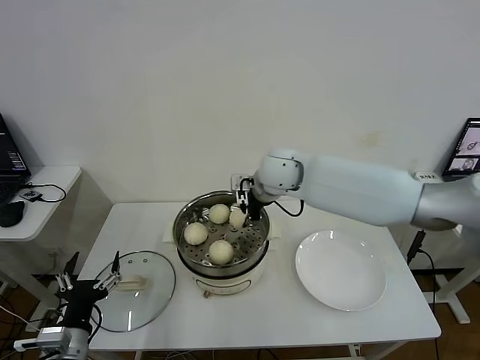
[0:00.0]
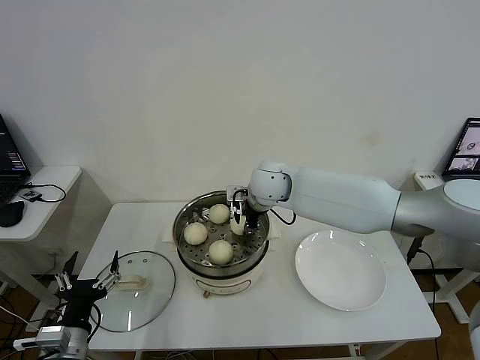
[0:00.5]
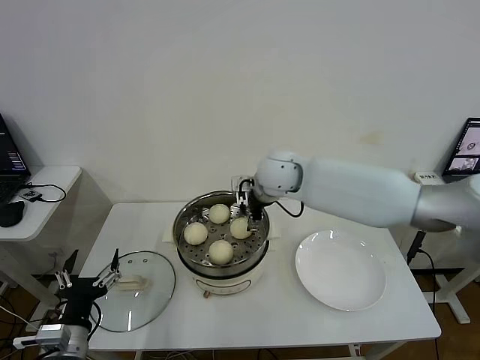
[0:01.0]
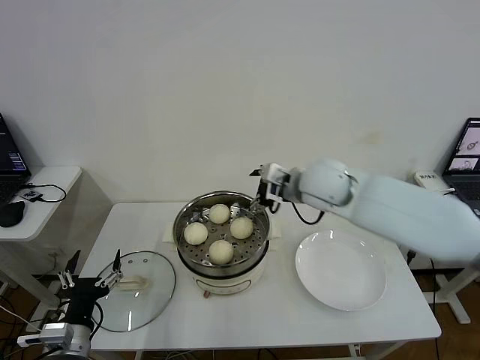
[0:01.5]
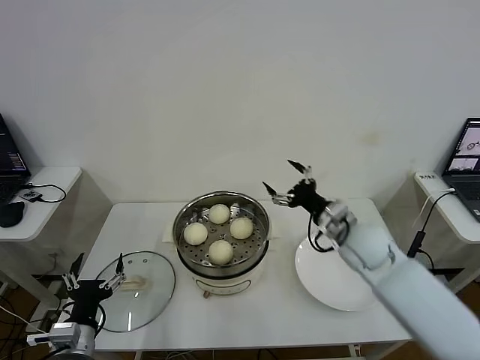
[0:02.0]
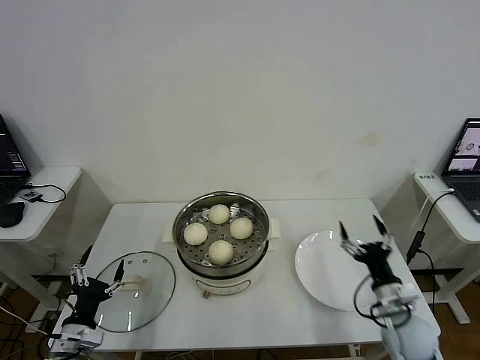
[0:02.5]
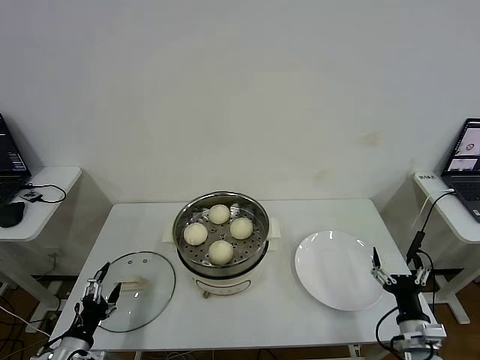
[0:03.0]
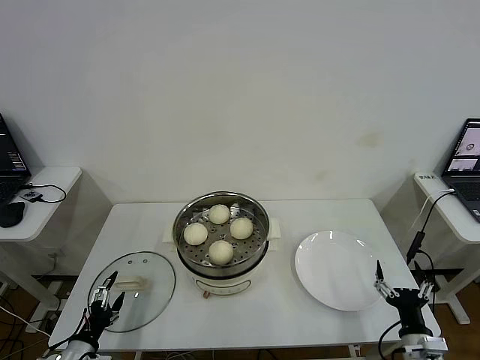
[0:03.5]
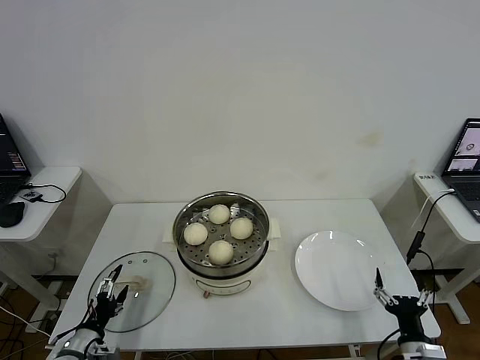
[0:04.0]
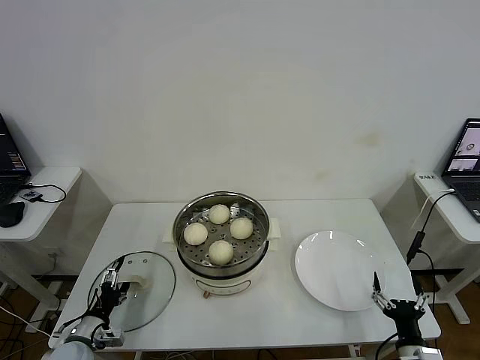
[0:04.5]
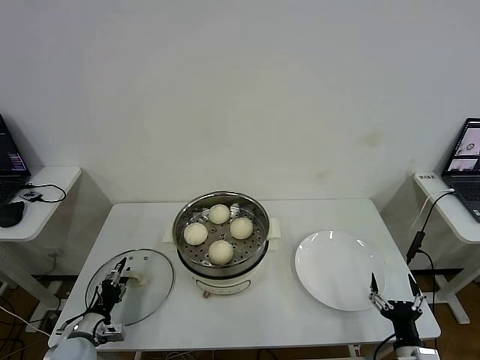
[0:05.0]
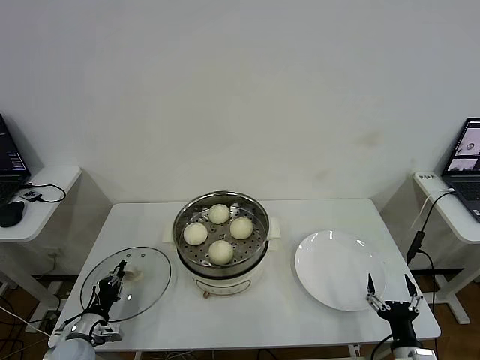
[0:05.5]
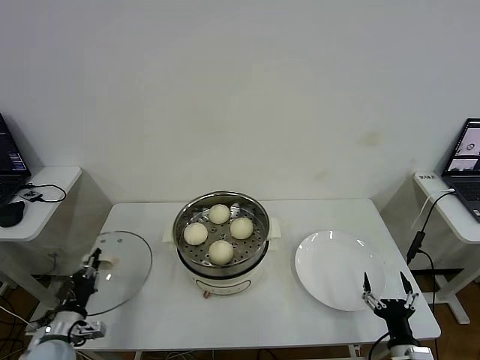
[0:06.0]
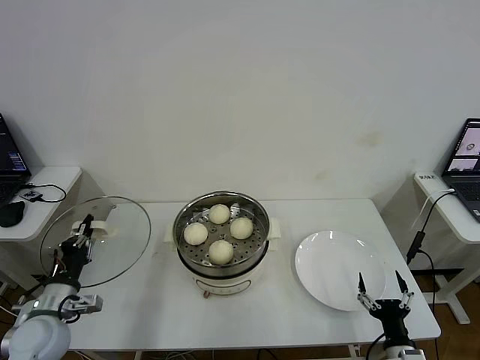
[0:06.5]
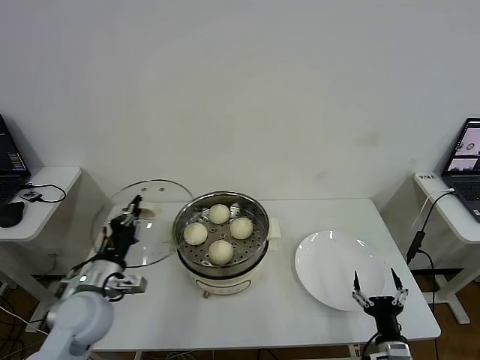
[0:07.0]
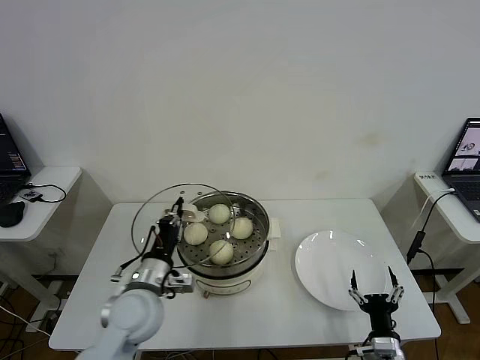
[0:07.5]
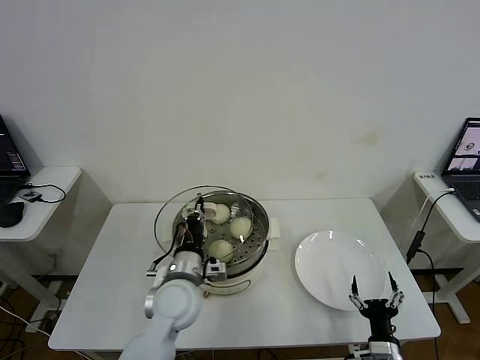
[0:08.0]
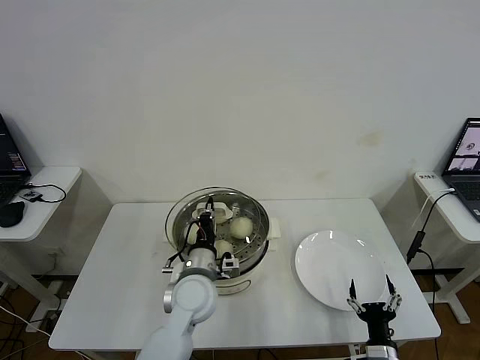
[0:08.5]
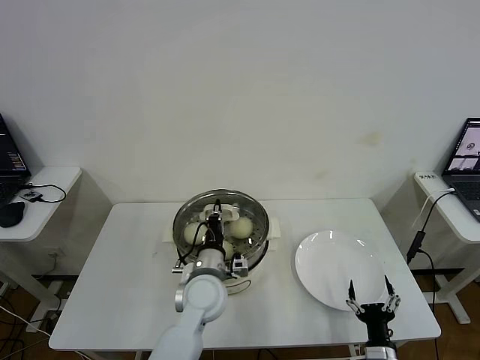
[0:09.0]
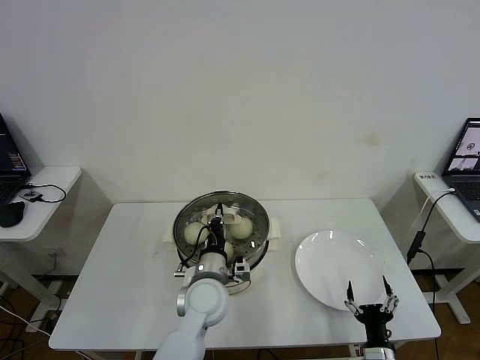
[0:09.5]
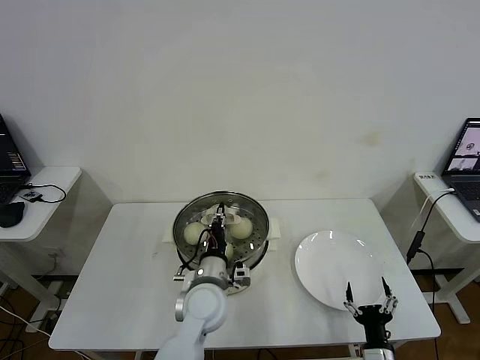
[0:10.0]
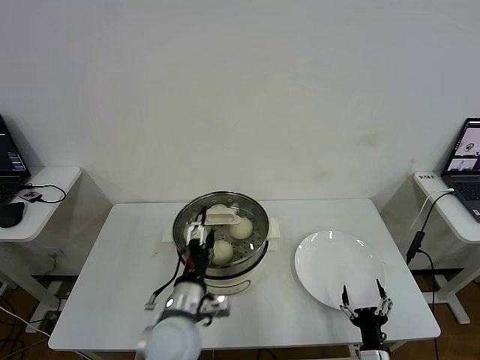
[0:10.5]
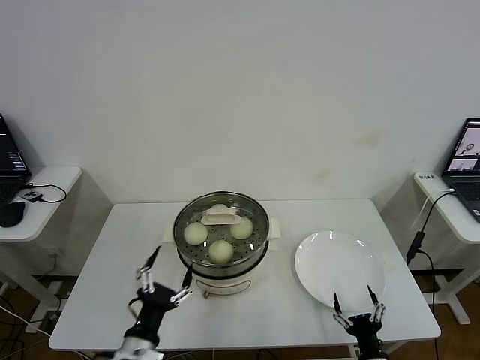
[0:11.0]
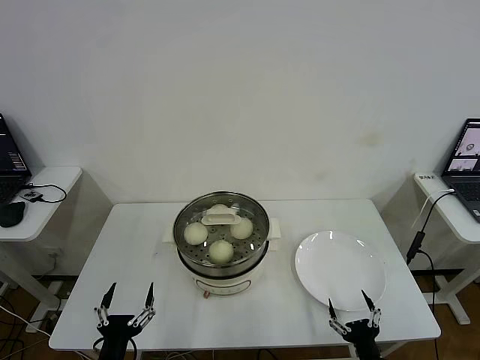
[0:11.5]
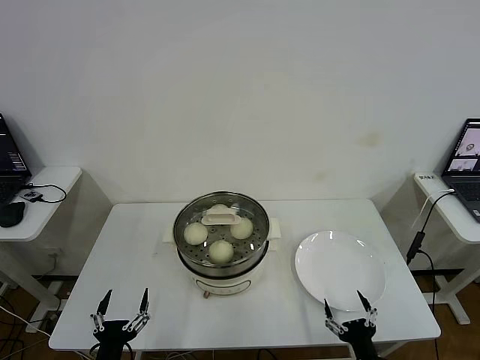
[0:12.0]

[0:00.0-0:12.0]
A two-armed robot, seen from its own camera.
Step, 0:01.0 to 0:05.5: Grasp the pot lid with left gripper.
Step, 0:06.0 to 0:10.0: Place the pot lid on the steamer with left gripper.
0:00.0 to 0:02.0: The right gripper travels to the right, backward and downward by some 25 cm, and opens.
0:02.0 to 0:04.0: The left gripper shifts about 10 cm downward and to the left. The right gripper heads backward, downward and to the right, covering approximately 35 cm.
0:04.0 to 0:06.0: The left gripper closes its fingers.
0:06.0 to 0:08.0: The left gripper heads to the right and upward, covering about 30 cm.
0:08.0 to 0:10.0: The left gripper is displaced to the right by some 5 cm.
0:10.0 to 0:12.0: The right gripper changes place by about 5 cm. The left gripper is displaced backward and to the left by roughly 30 cm, and opens up.
